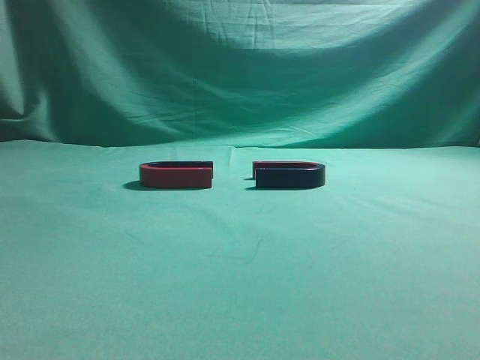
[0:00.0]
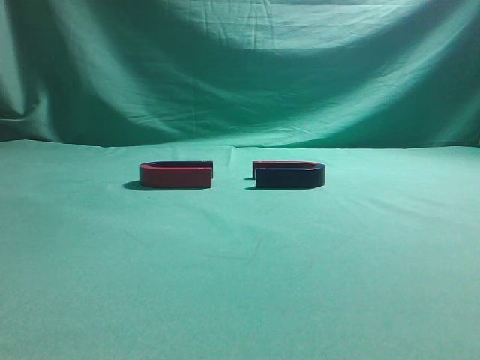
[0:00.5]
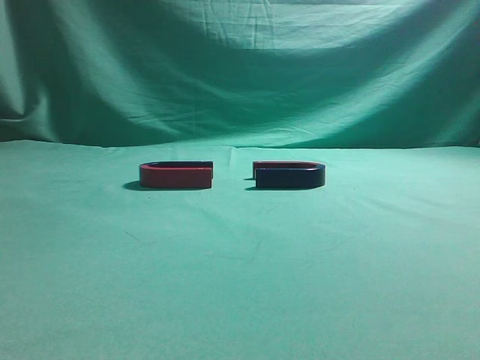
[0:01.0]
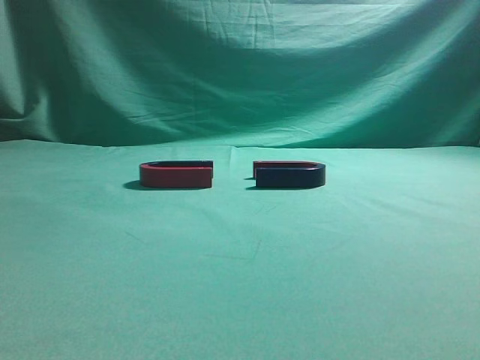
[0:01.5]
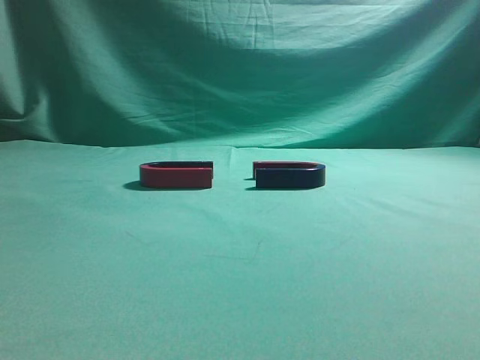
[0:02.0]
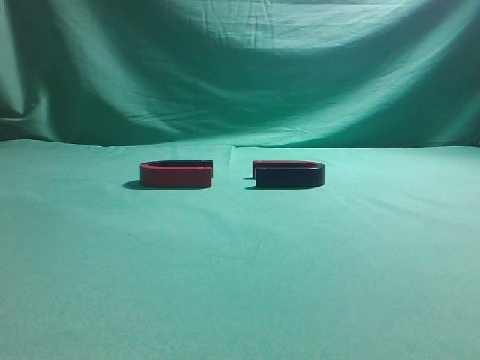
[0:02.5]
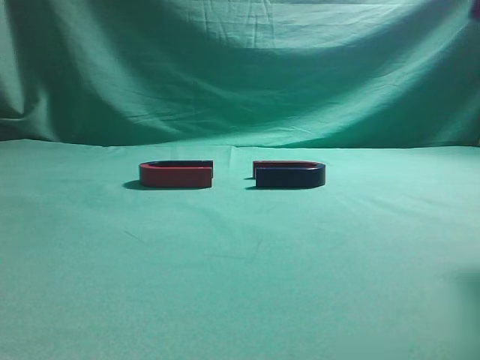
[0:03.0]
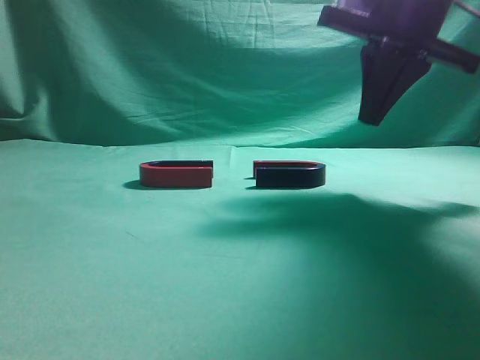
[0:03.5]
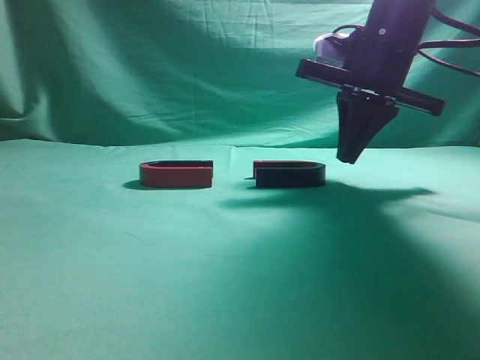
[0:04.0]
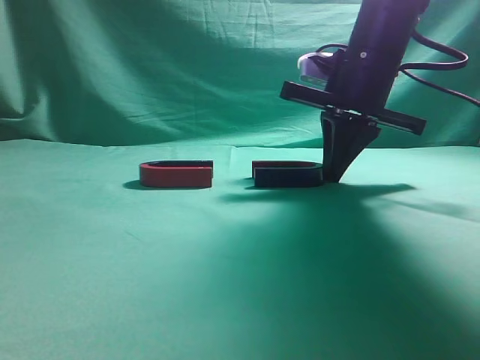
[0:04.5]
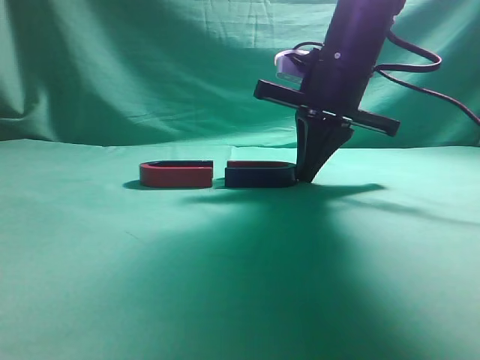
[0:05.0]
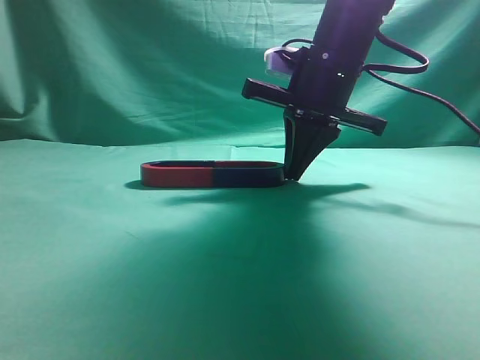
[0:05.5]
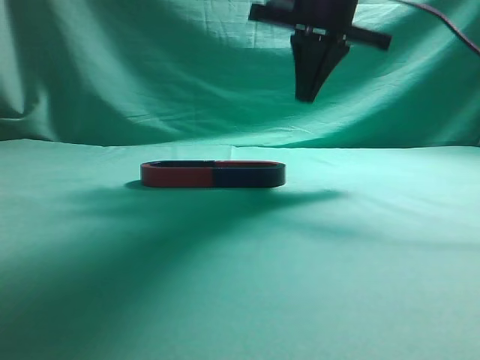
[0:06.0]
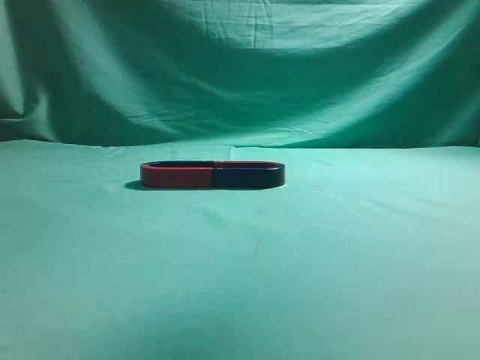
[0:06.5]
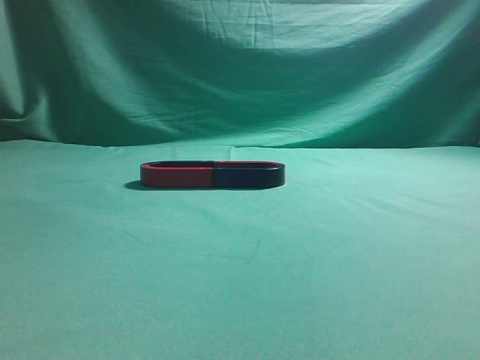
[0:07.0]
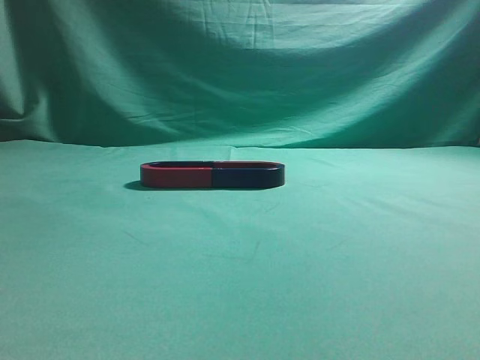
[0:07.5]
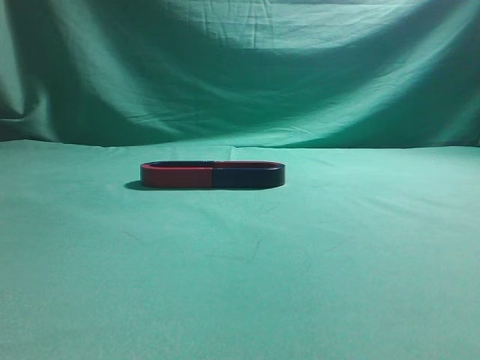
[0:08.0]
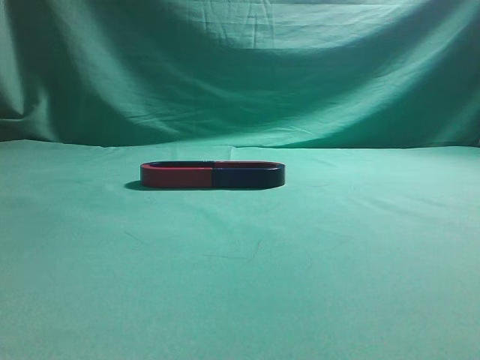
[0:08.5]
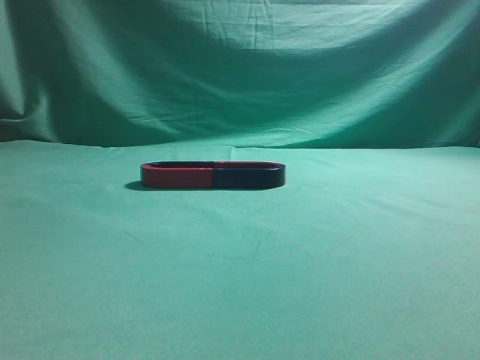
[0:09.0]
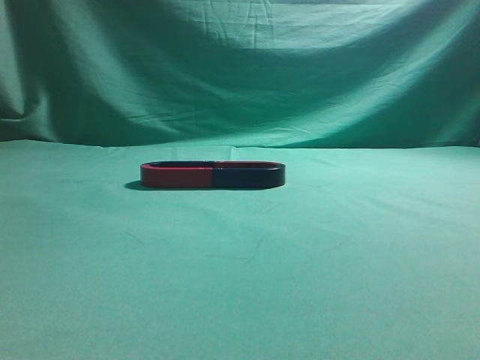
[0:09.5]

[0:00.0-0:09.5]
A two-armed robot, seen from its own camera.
Task of the whole recording: push the magnet on the table from its original position to another position.
Step, 0:00.0 to 0:05.5: Push the magnet on the right to connect the magnet on the left.
0:02.0 to 0:04.0: The right gripper is displaced forward by some 35 cm.
0:04.0 to 0:05.5: The right gripper moves to the left, some 5 cm.
0:05.5 to 0:07.5: The right gripper goes roughly 40 cm backward, upward and to the right.
